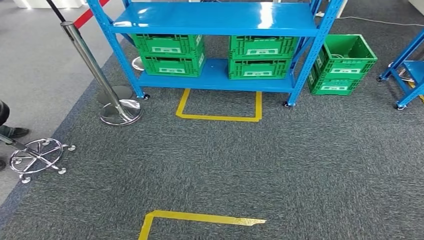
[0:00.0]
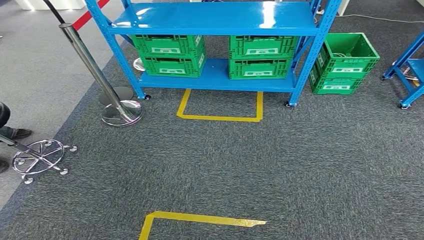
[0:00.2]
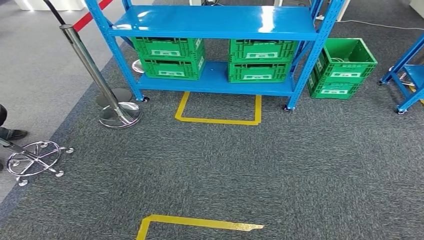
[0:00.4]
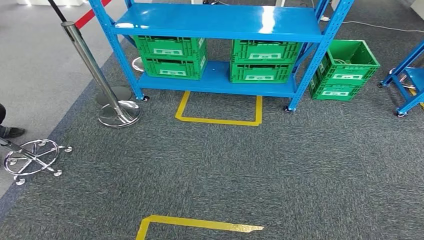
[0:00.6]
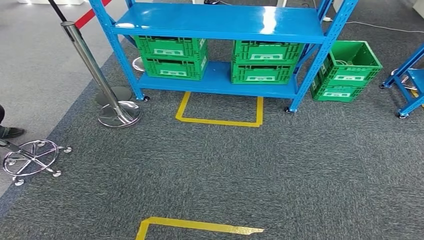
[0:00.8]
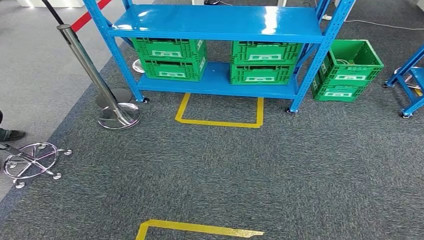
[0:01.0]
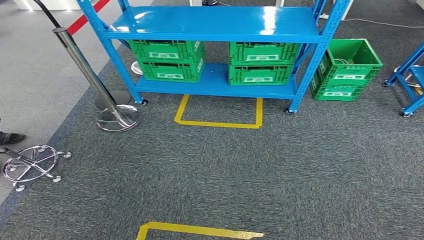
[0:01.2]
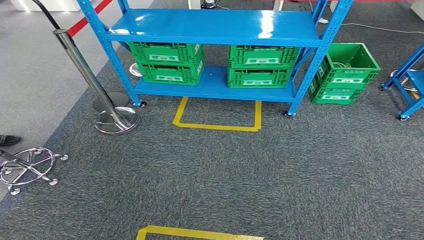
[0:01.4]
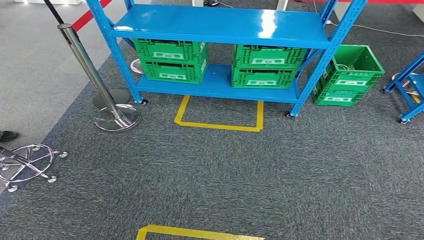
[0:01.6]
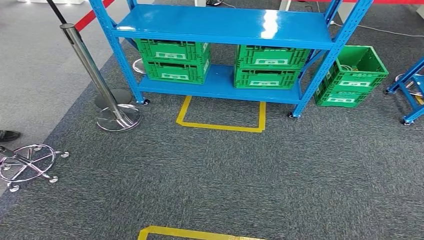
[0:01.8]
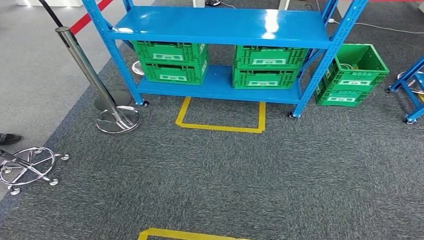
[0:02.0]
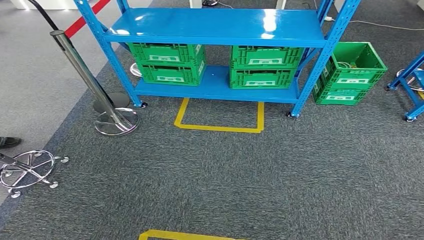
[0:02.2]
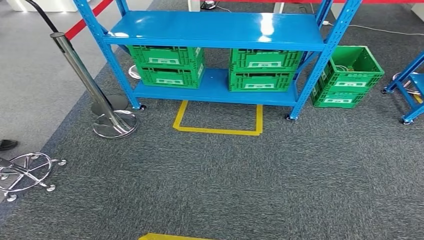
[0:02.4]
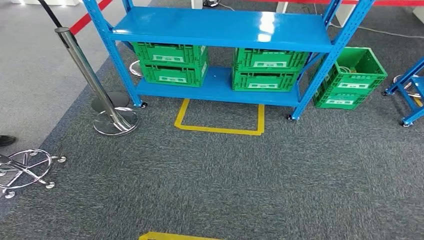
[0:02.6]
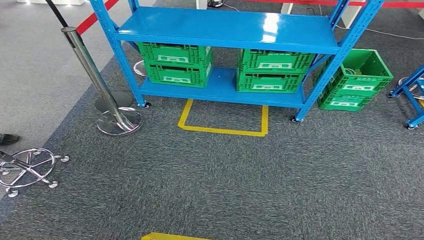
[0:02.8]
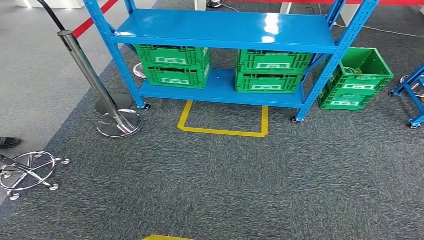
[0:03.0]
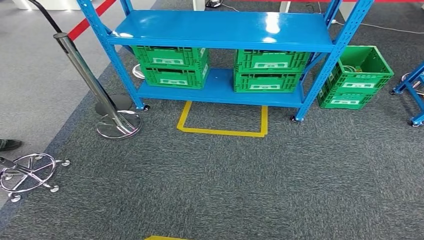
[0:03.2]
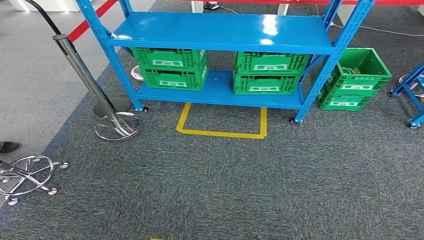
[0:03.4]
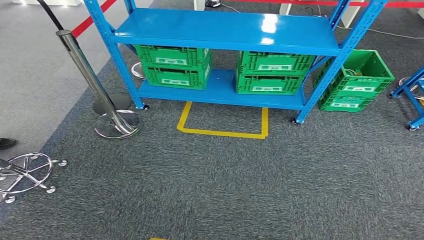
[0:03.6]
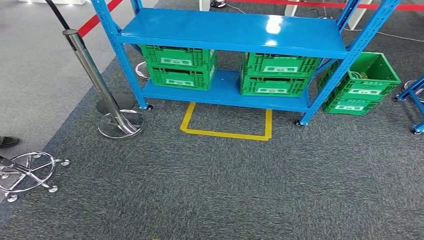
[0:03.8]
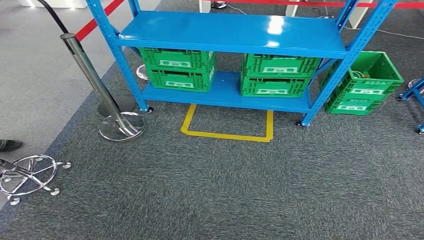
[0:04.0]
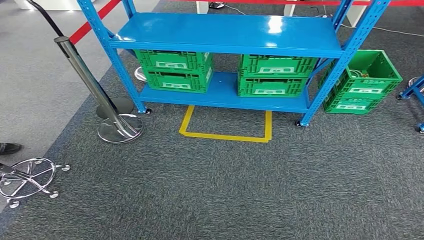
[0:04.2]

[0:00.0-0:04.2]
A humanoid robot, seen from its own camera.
Step, 0:00.0 to 0:04.2: Move to the initial position at the workbench.
0:01.4 to 0:02.8: The hands move only a little.
0:02.8 to 0:04.2: Neither hand changes place.
